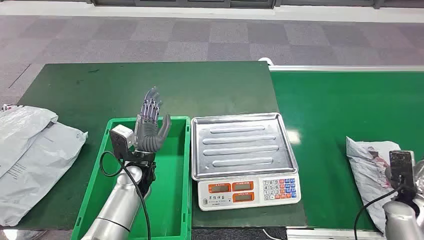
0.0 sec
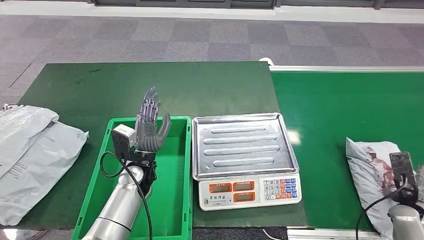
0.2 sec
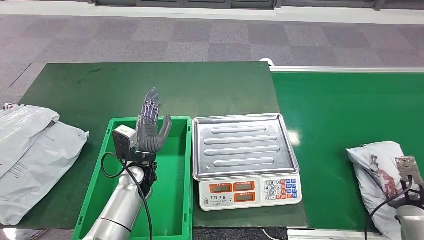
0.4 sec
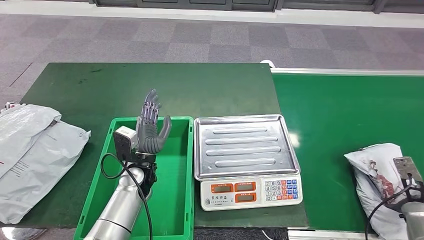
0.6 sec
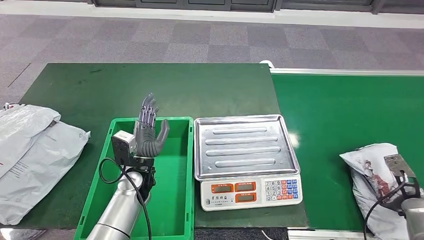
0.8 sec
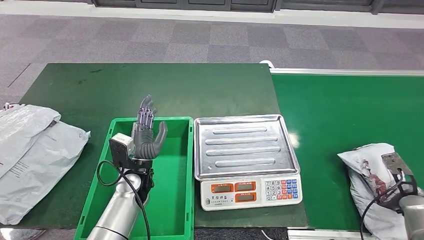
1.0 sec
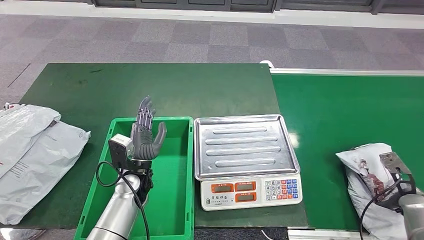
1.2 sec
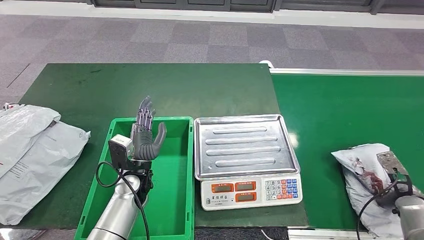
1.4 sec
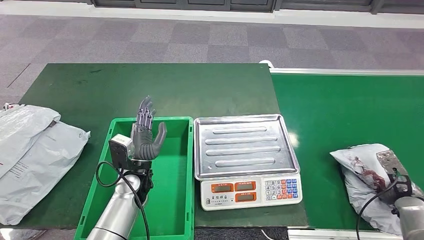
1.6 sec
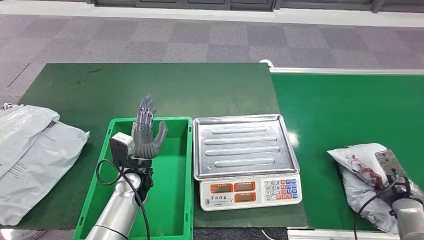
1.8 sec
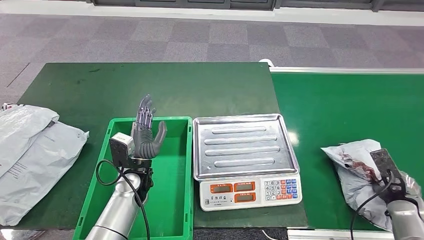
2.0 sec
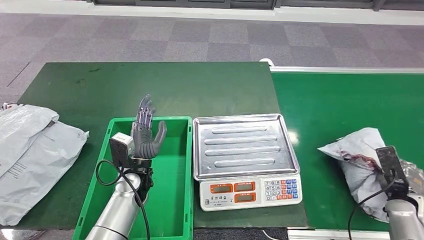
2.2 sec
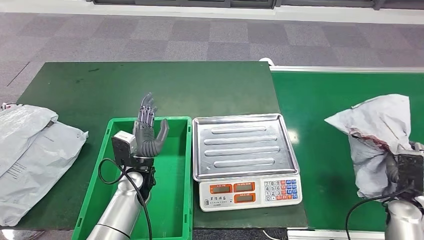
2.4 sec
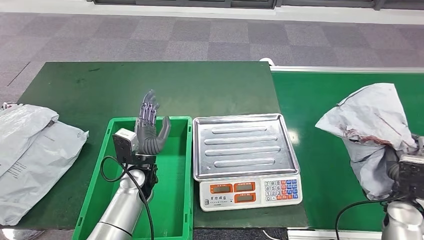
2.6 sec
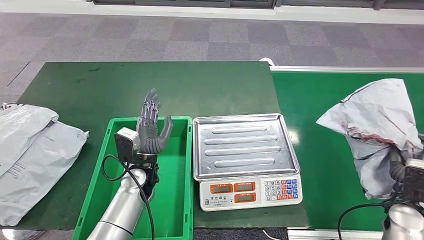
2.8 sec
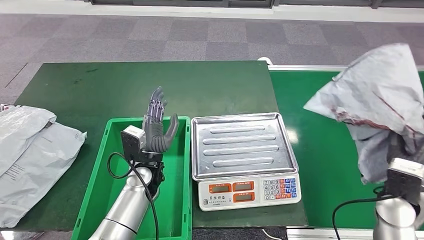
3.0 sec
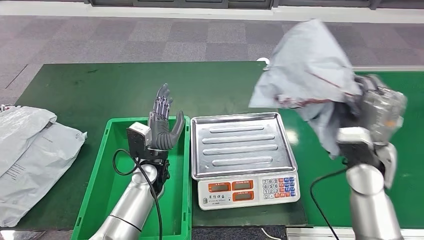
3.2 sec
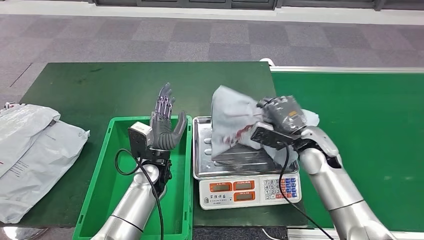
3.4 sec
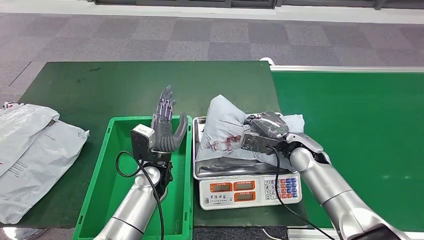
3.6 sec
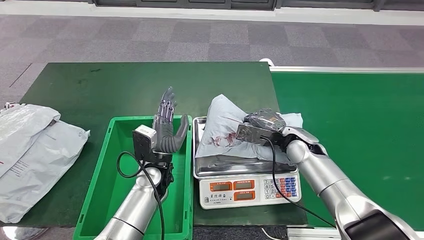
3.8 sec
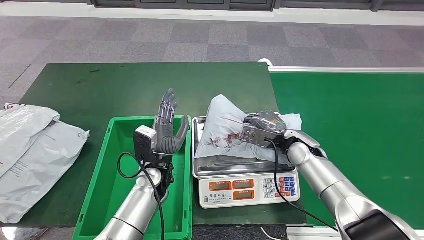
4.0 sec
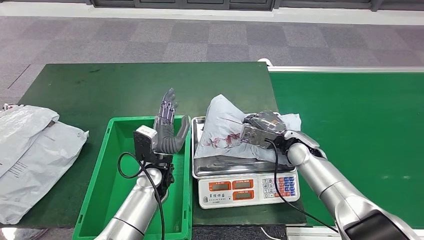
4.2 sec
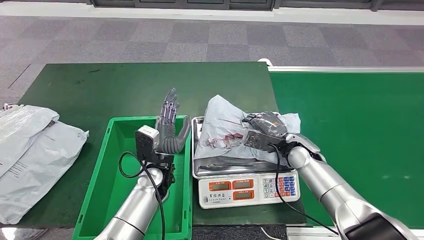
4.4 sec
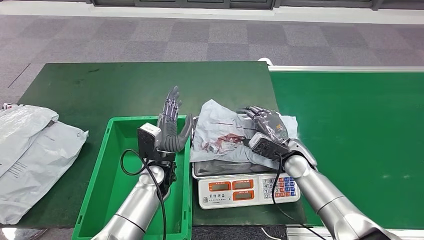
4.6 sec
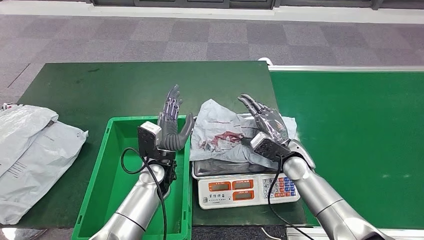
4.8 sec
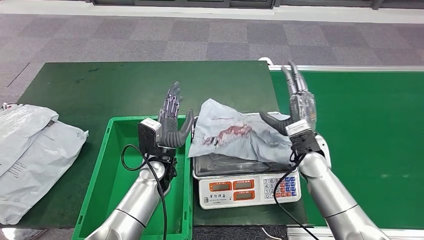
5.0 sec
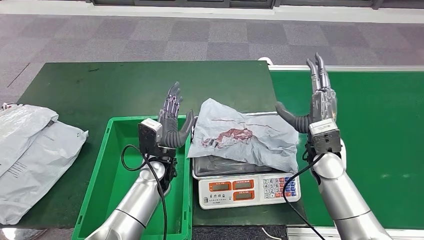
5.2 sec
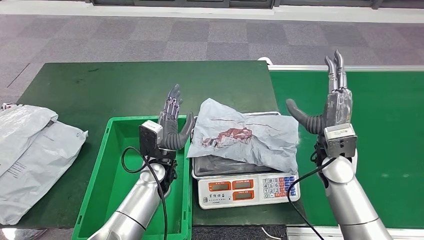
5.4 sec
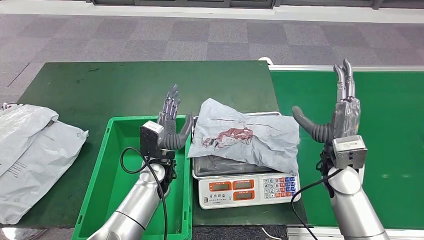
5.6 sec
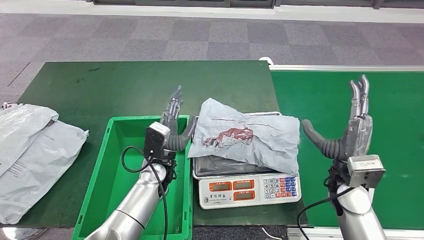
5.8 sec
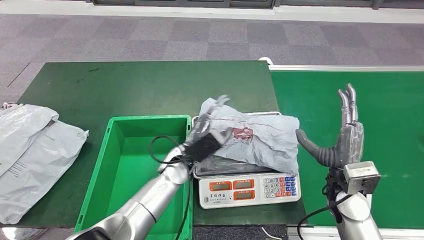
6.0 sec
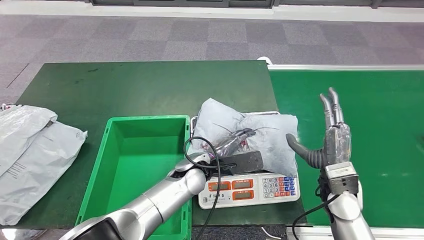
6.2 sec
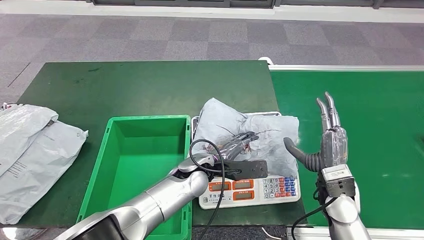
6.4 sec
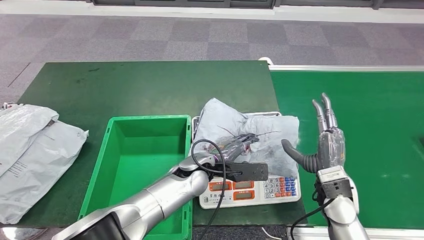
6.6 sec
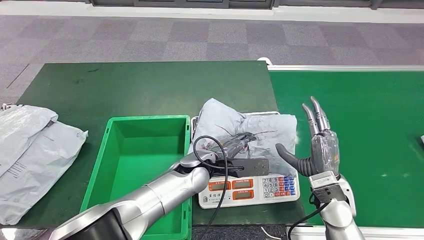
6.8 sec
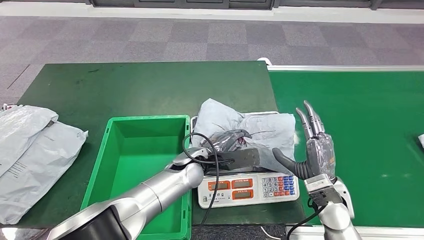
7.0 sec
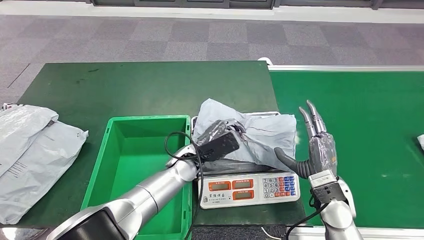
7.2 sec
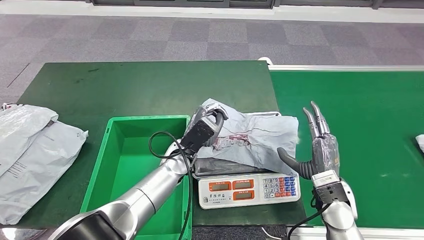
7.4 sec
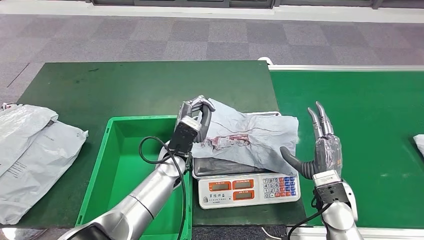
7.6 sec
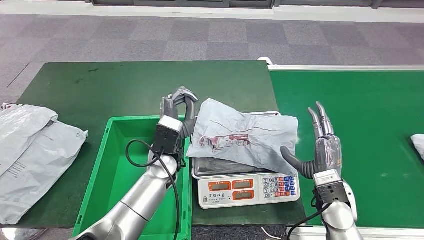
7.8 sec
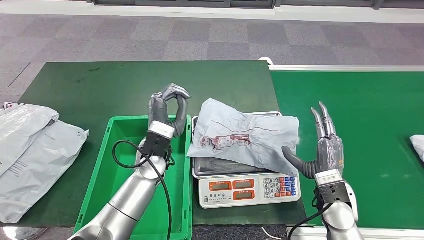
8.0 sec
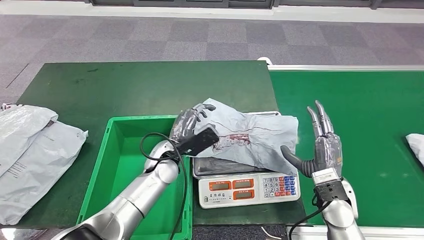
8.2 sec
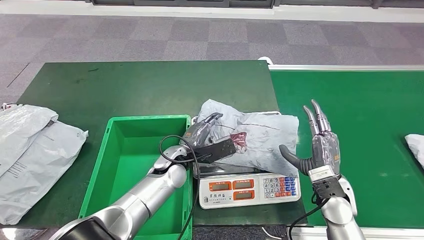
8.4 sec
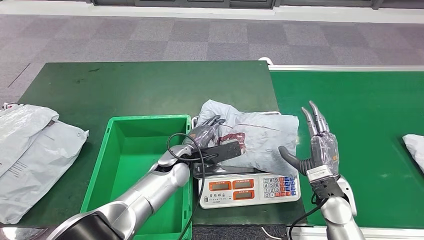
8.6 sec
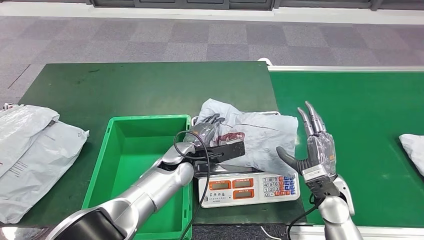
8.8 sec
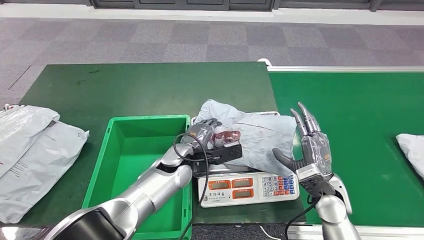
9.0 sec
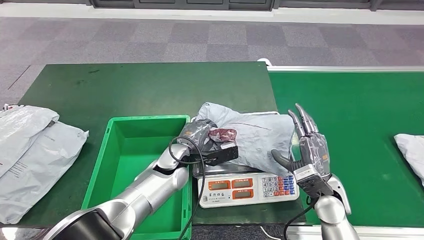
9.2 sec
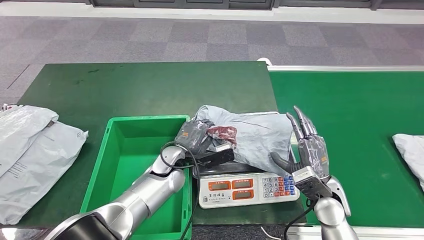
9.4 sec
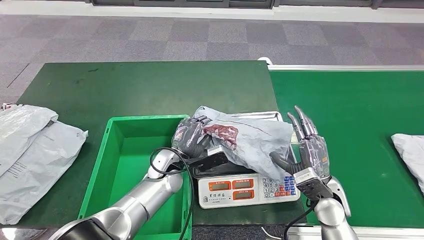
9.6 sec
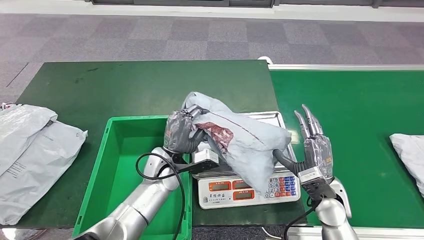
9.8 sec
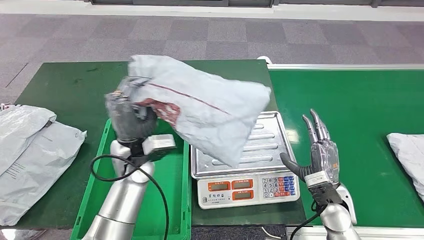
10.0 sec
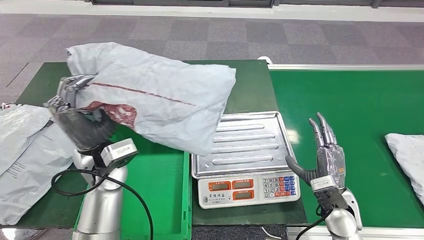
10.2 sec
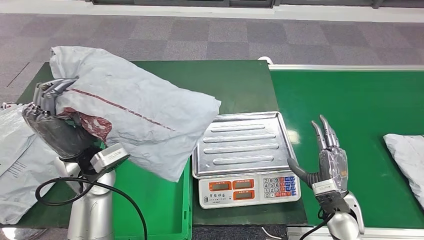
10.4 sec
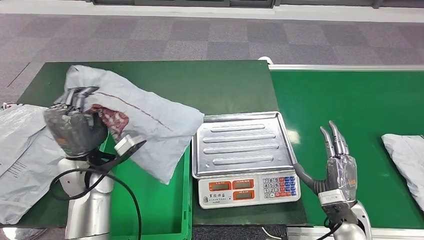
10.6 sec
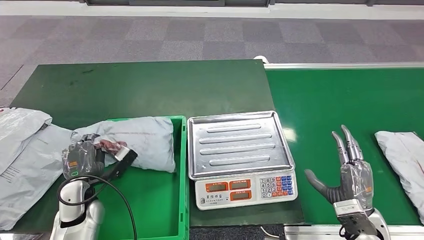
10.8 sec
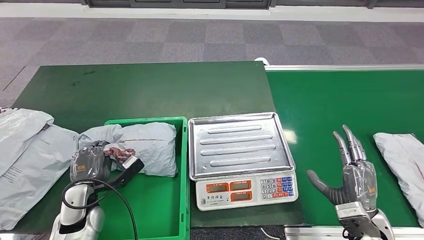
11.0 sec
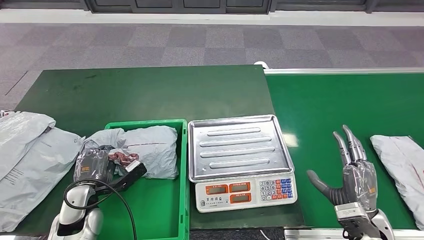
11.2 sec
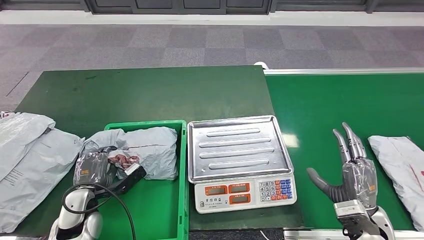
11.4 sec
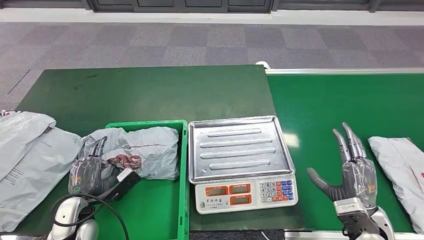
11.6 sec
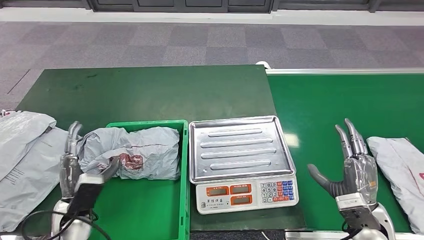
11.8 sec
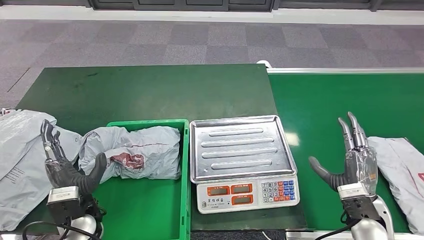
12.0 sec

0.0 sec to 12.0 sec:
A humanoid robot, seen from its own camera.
Step, 0.0 sec to 2.6 sec: Take the parcel off the conveyor belt.
Step, 3.4 sec to 5.2 sec: Place the parcel onto the inbound machine.
Step, 5.8 sec to 10.4 sec: Pick up the parcel from the inbound machine.

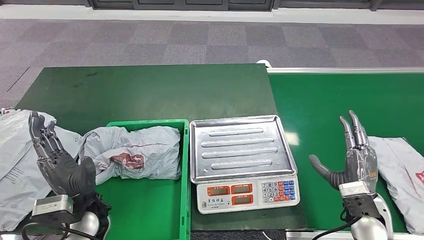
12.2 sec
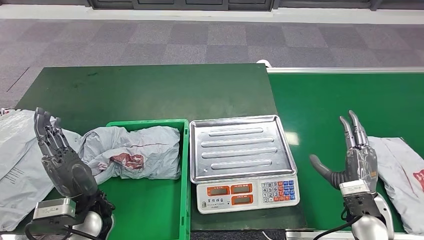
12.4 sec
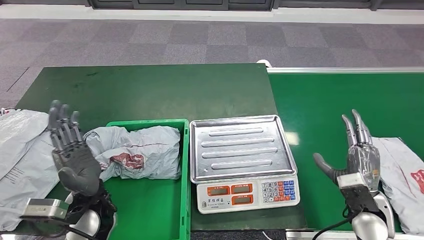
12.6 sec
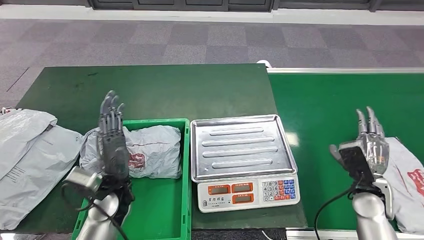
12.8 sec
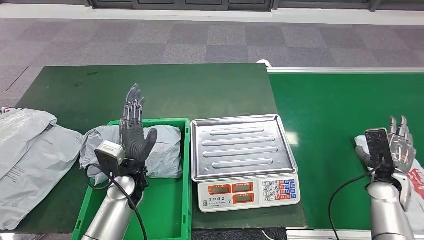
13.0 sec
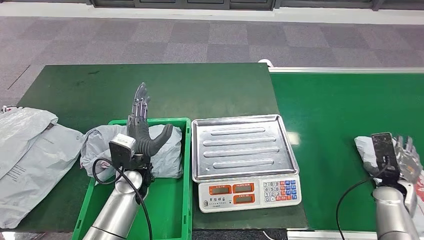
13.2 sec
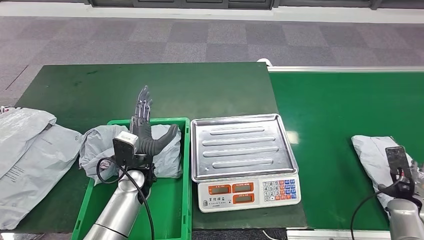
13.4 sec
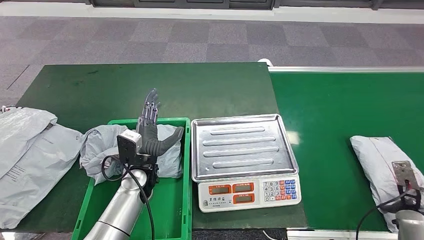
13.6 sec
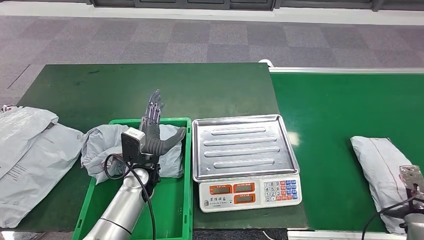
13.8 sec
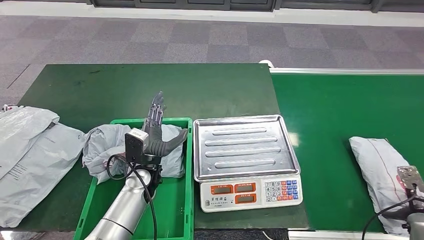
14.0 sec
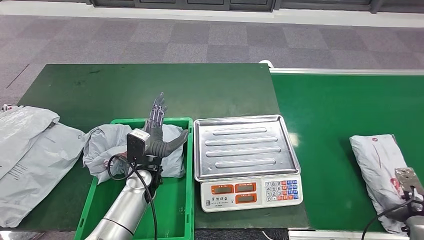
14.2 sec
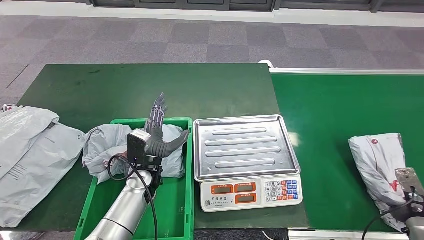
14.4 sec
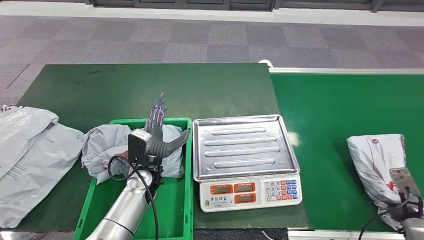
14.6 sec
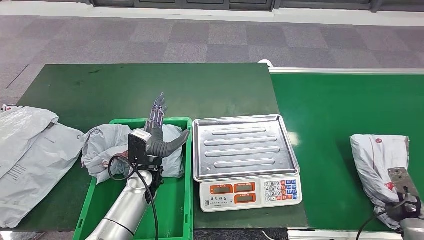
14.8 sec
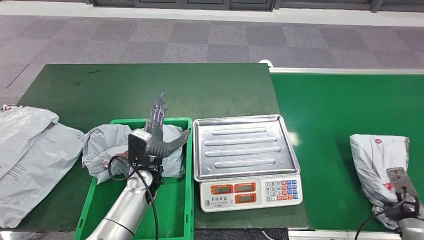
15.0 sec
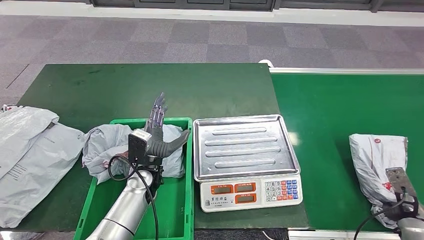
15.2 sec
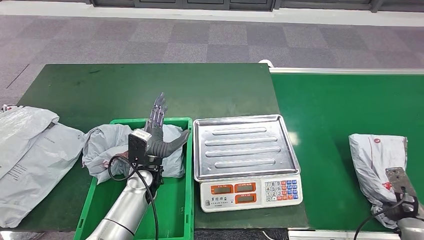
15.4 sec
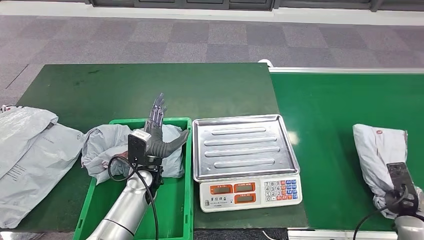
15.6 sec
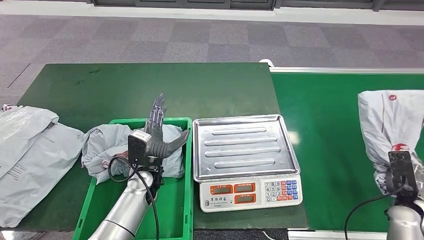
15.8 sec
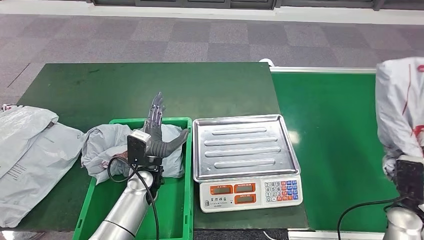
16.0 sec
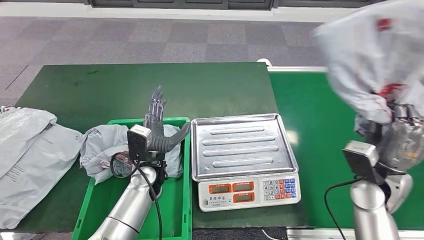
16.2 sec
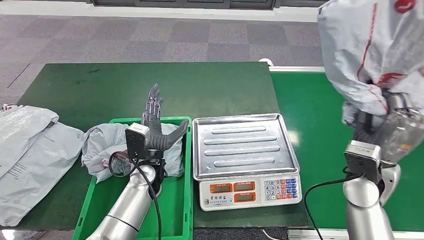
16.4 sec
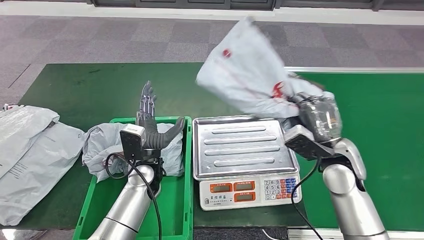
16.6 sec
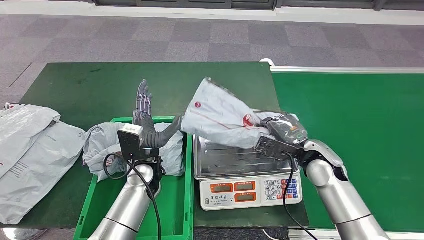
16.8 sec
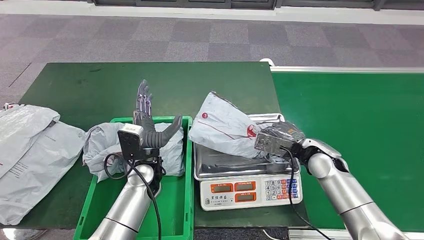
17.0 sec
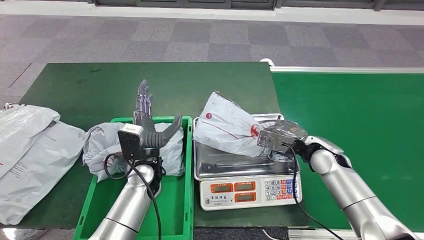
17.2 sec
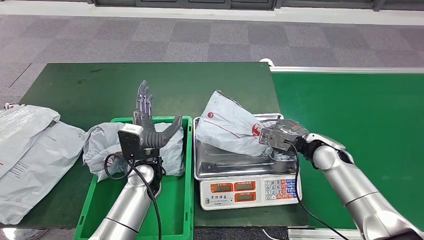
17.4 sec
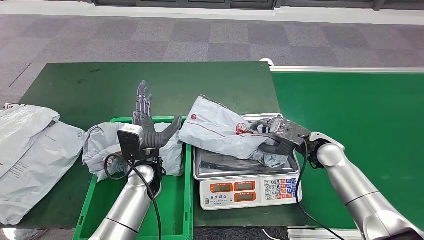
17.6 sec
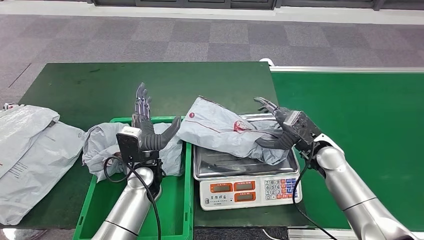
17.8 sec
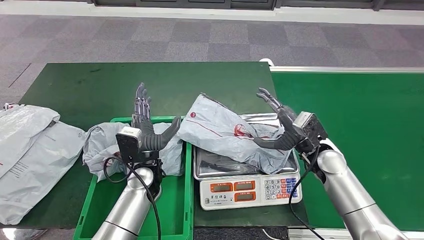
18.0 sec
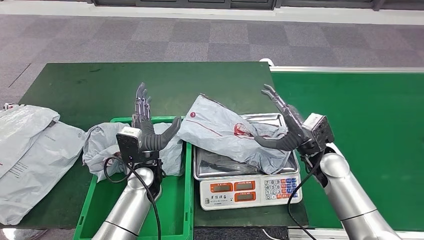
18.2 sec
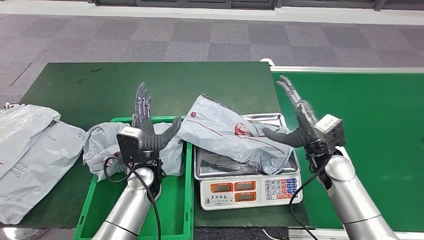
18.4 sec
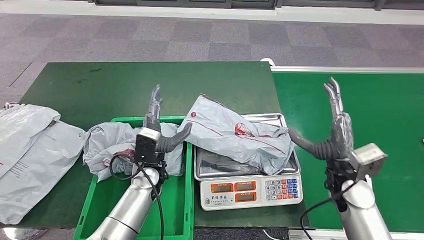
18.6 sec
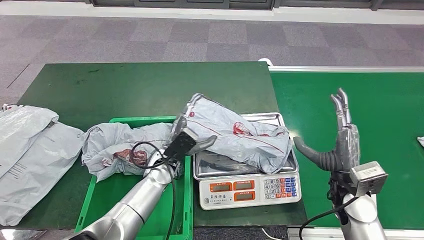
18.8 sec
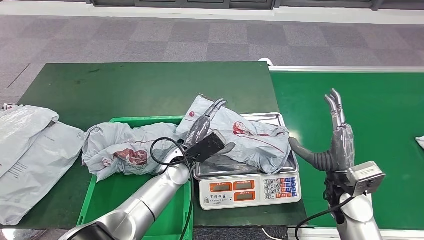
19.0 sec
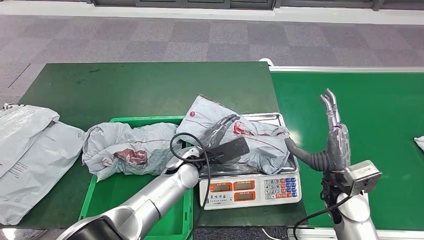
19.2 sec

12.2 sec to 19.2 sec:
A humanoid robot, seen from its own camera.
Step, 12.6 sec to 16.6 sec: Pick up the parcel from the conveyor belt.
Step, 17.0 sec to 18.8 sec: Place the parcel onto the inbound machine.
13.6 sec to 15.0 sec: The hands make only small movements.
